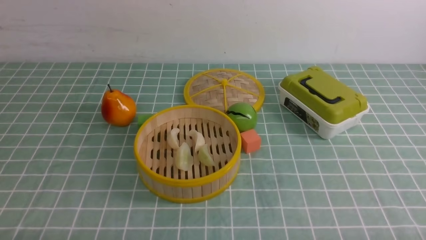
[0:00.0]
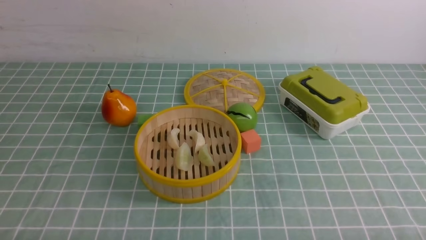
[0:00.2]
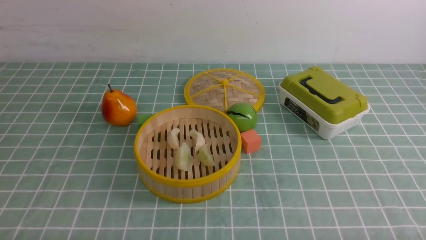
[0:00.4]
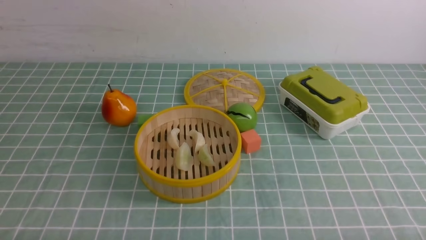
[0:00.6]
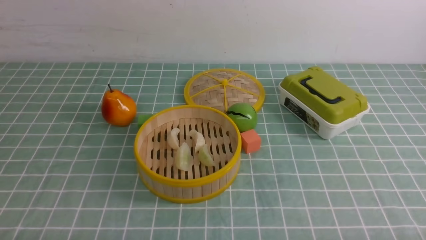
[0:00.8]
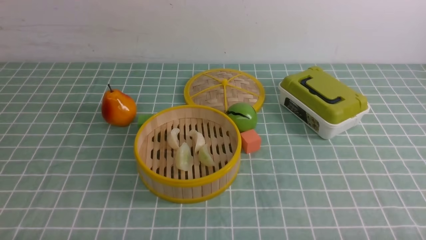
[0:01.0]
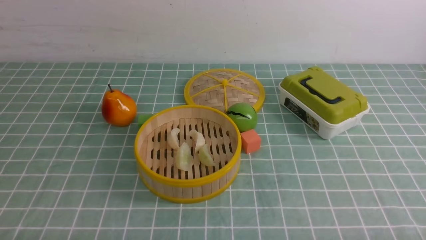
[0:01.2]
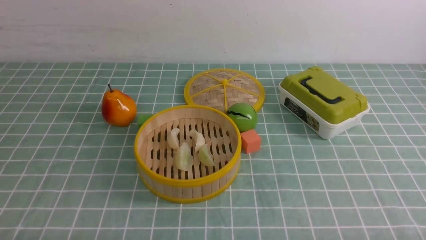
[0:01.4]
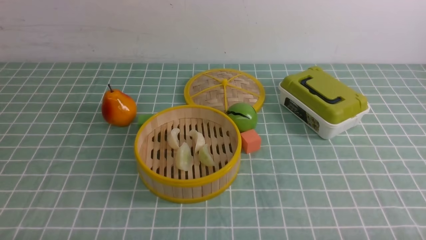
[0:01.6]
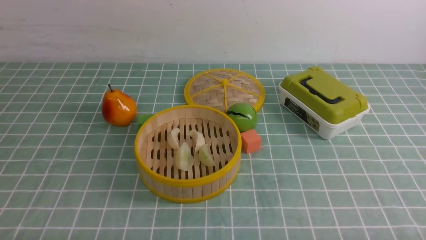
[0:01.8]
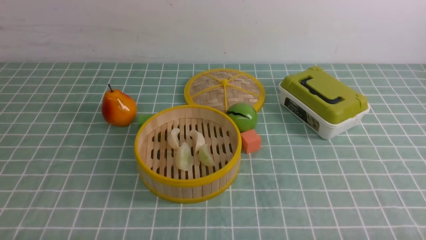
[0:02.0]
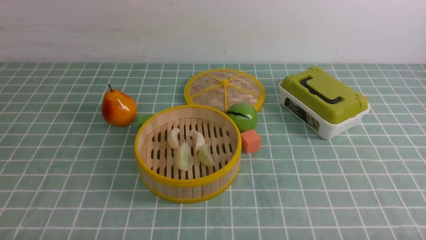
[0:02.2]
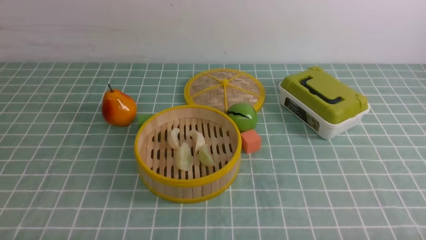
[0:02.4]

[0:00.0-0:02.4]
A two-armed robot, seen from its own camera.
Task of the whole recording: put the dumplings into the steamer on the table with the blue tablecloth.
0:01.2 to 0:02.4: Both grippers stay about where they are.
